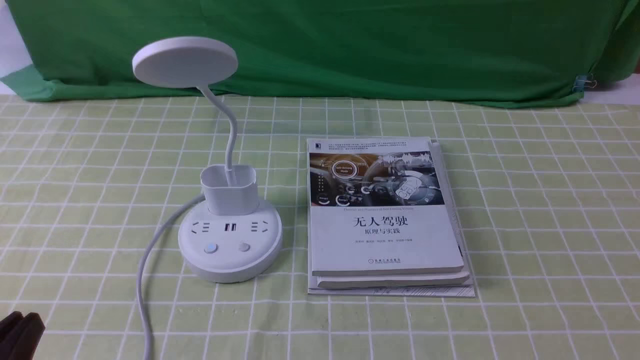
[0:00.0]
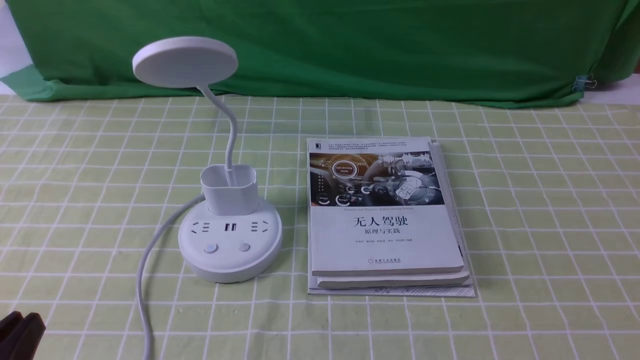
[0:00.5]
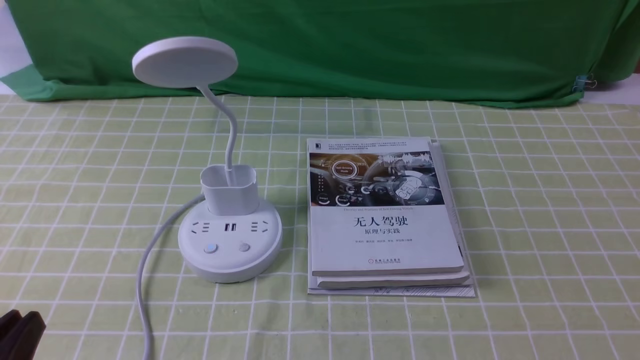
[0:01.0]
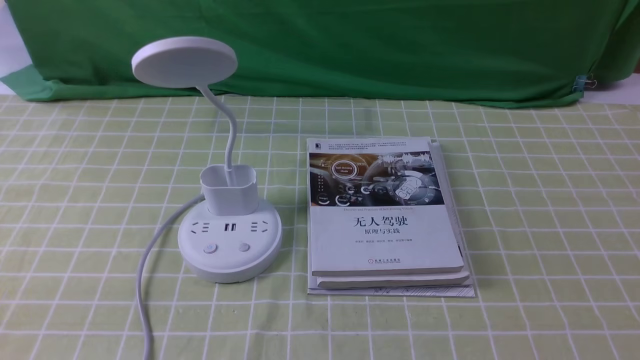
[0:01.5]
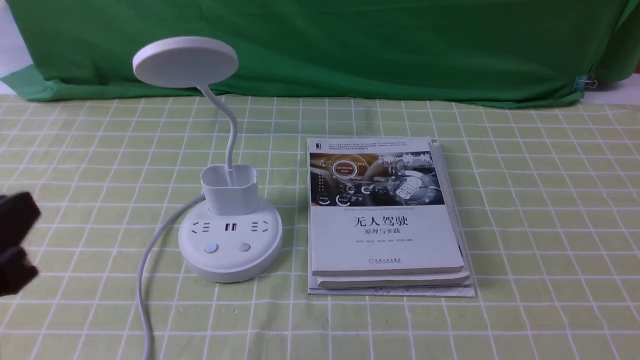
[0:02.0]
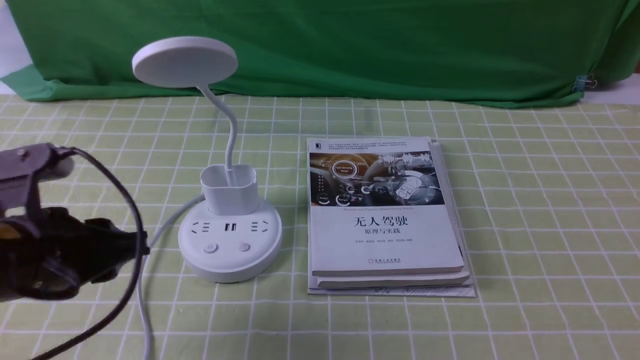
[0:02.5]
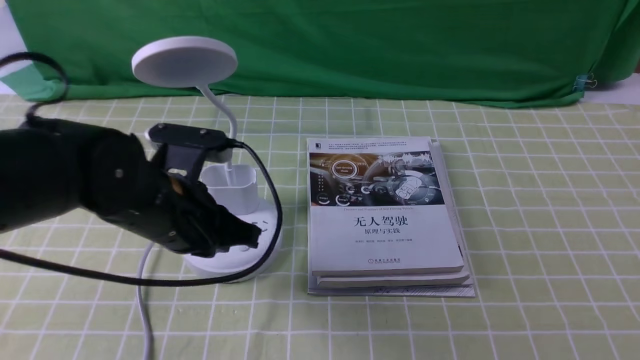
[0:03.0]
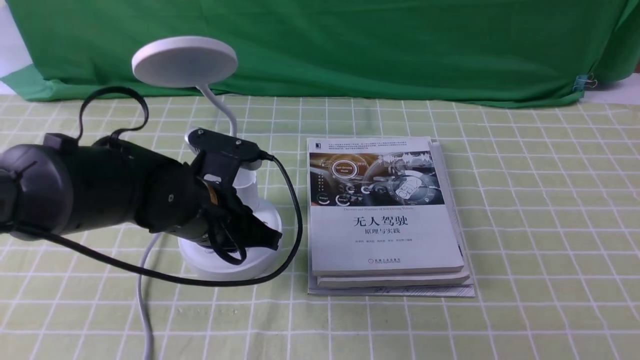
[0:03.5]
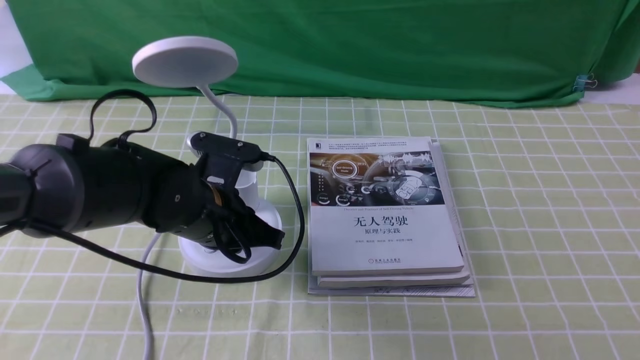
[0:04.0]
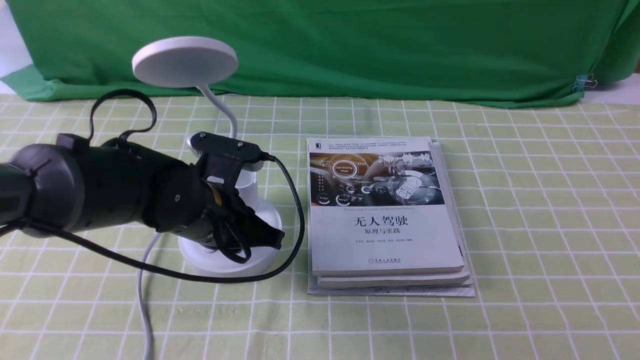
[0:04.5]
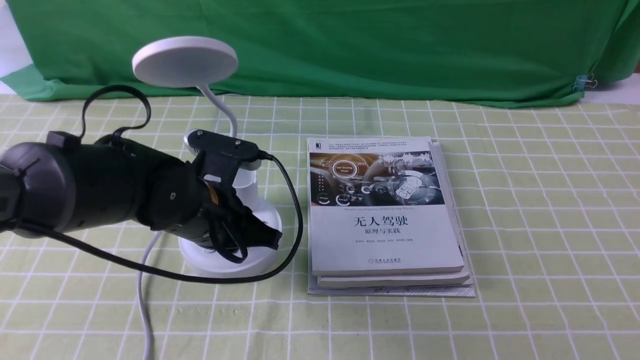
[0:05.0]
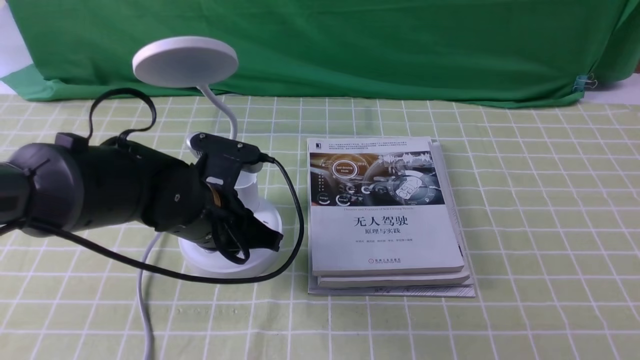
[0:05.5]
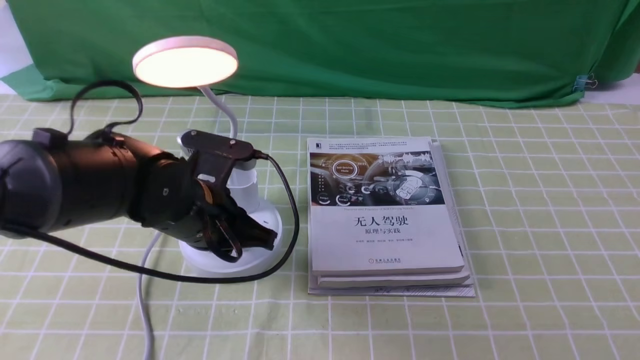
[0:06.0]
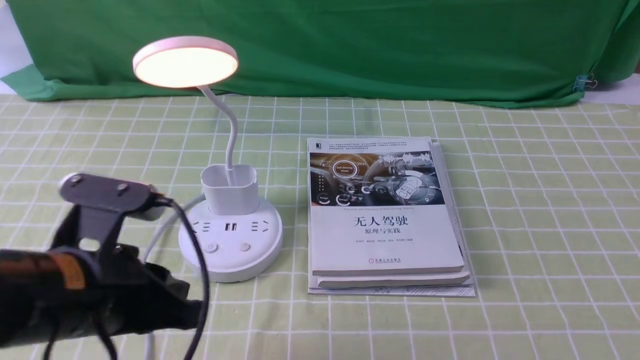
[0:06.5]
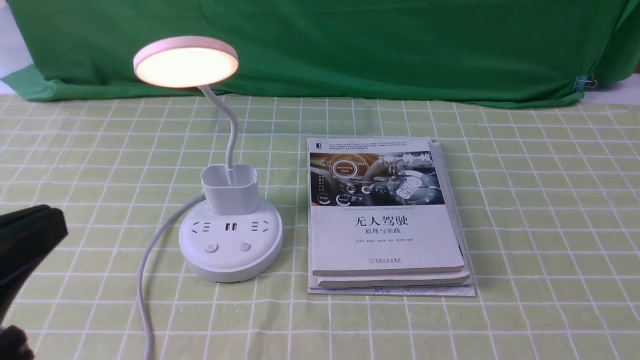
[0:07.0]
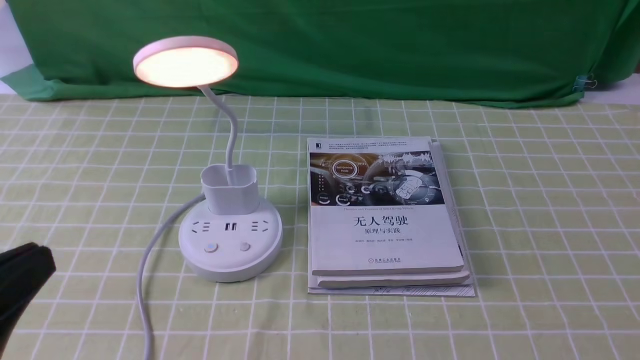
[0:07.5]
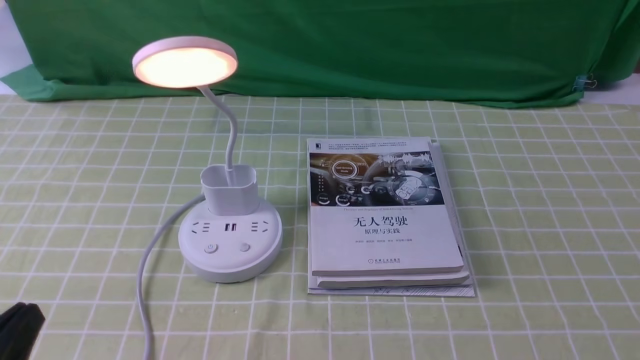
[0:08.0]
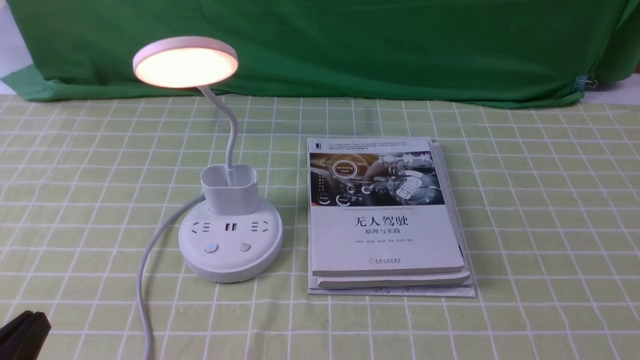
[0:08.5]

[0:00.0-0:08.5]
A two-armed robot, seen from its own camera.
Step, 0:00.0 to 0:06.0: use the left arm to press the button switch on the lamp holder.
0:02.0 to 0:04.0: The left gripper shifts some 30 cm forward, to the right and downward, and closes.
0:04.0 to 0:06.5: The left gripper travels backward and upward by roughly 10 cm.
0:06.5 to 0:08.5: The left gripper is displaced backward and to the left by roughly 20 cm.
